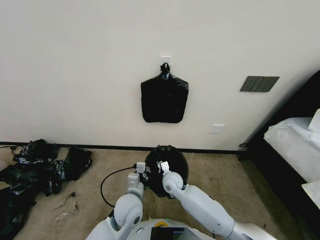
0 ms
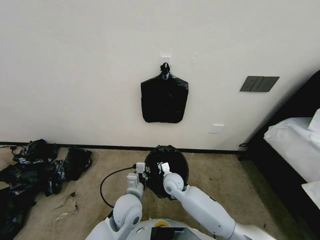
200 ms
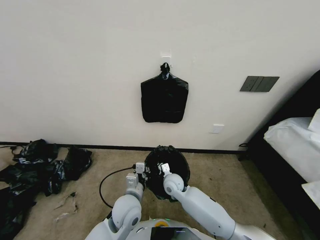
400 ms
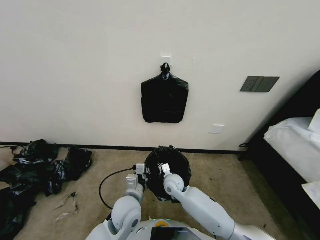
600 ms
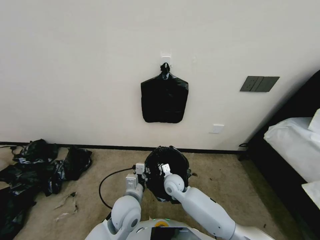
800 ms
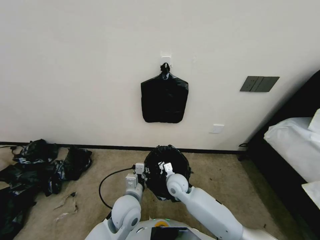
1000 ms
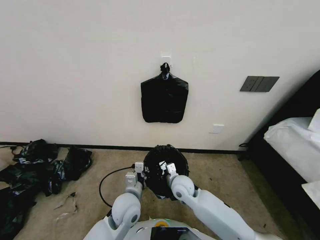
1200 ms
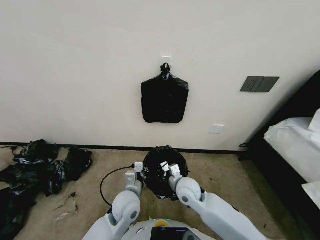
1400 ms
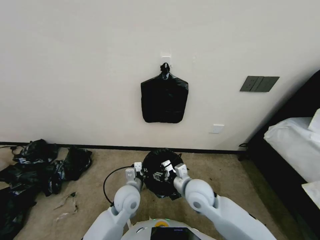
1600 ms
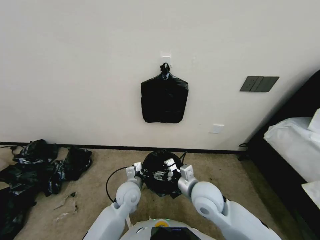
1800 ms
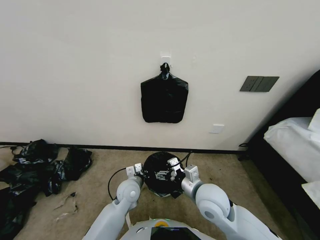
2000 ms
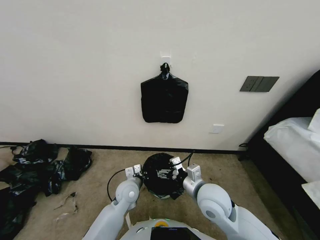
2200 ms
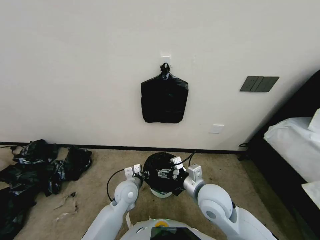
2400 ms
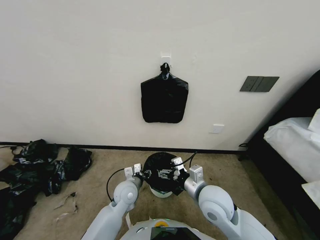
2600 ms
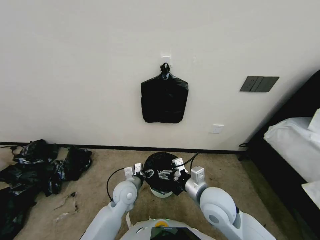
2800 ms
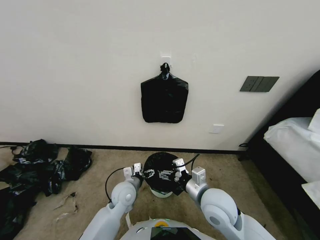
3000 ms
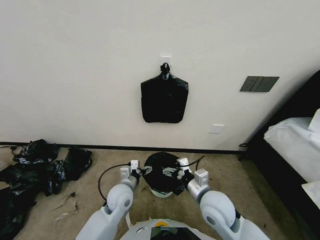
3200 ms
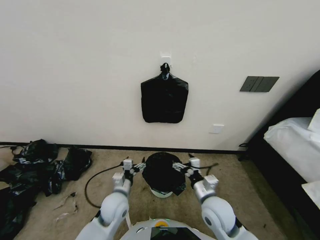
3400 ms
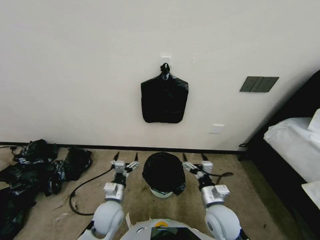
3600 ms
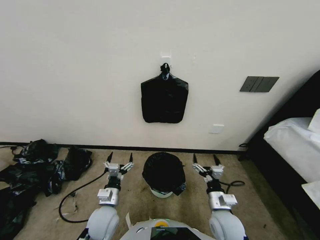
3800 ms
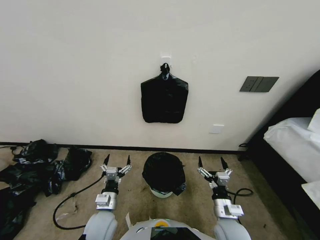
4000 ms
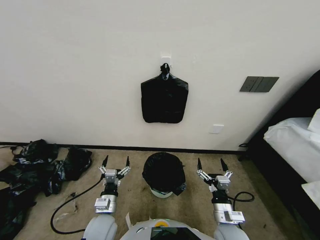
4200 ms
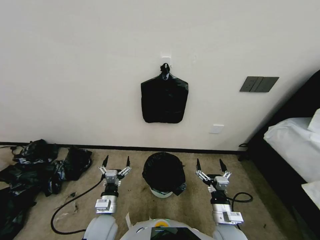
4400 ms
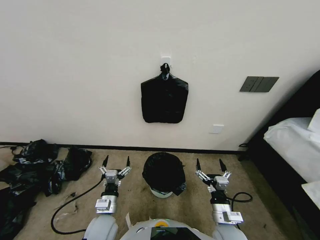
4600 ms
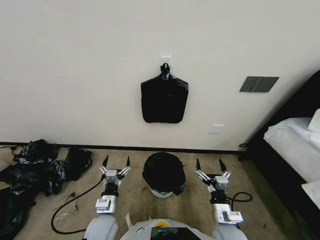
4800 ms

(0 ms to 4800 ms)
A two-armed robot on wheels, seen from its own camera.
Task of the whole recording: Place a trash bag onto the trash bin.
0 ms - 1600 ms: The right gripper moves upward, backward and to the right, roughly 10 cm, and opens.
1600 ms - 3200 ms: The right gripper moves backward and upward, about 10 cm, and opens; the left gripper opens up.
3200 ms - 4800 ms: The left gripper goes roughly 10 cm backward and to the left; the right gripper is displaced downward, backward and to the right by approximately 15 cm.
